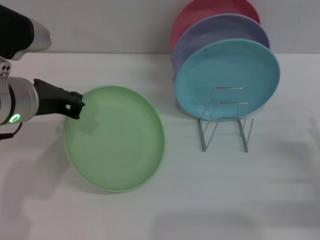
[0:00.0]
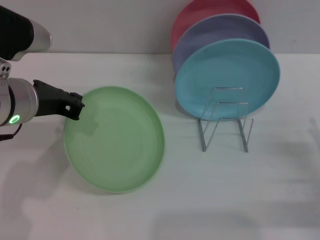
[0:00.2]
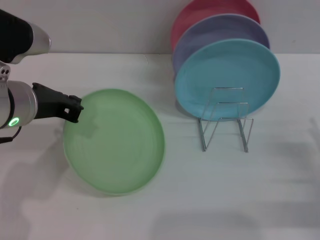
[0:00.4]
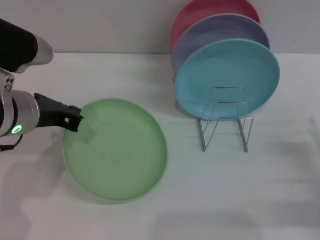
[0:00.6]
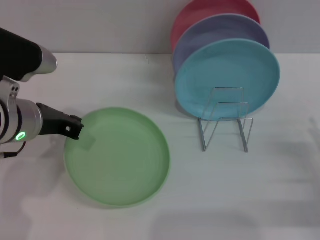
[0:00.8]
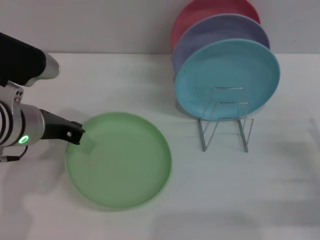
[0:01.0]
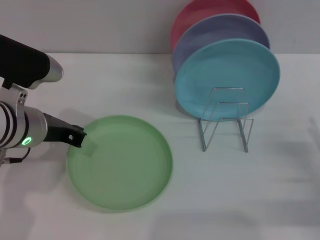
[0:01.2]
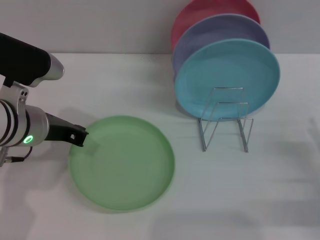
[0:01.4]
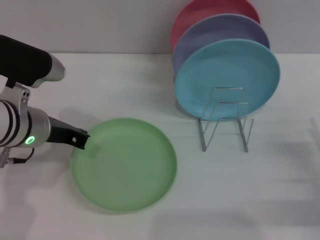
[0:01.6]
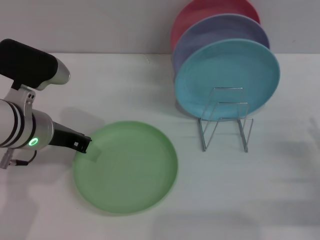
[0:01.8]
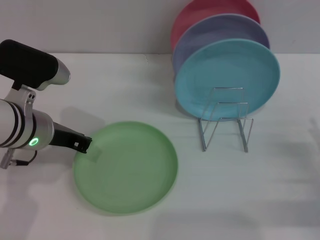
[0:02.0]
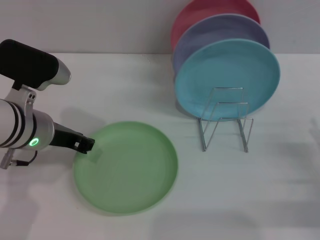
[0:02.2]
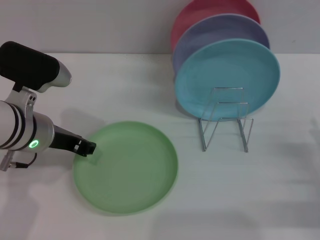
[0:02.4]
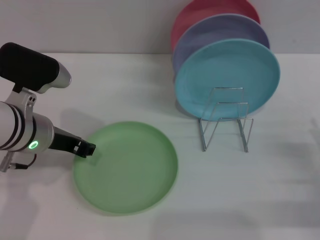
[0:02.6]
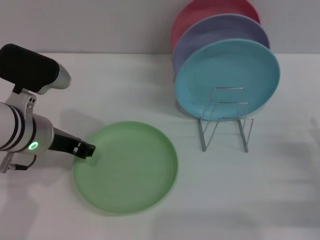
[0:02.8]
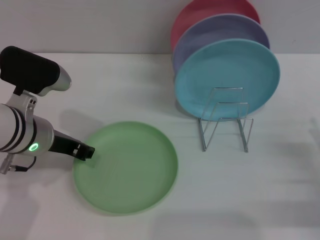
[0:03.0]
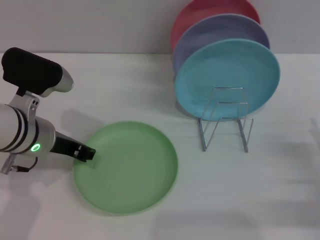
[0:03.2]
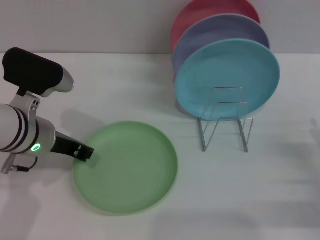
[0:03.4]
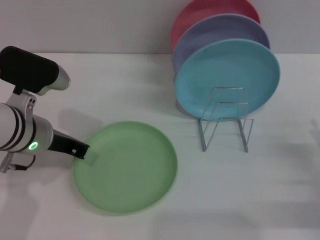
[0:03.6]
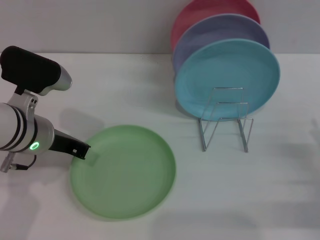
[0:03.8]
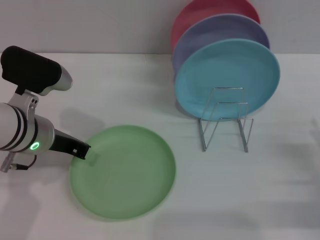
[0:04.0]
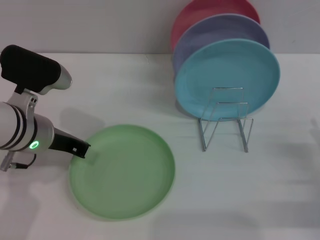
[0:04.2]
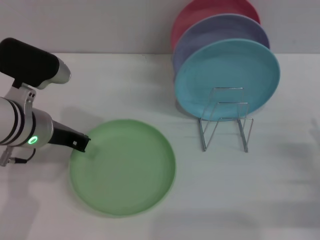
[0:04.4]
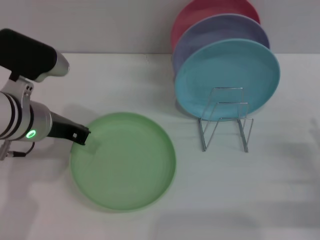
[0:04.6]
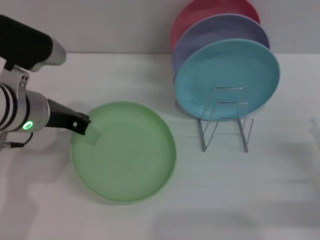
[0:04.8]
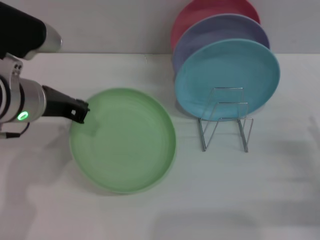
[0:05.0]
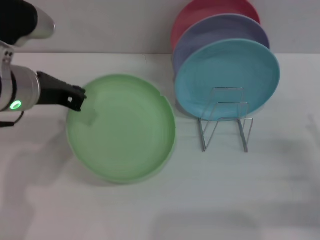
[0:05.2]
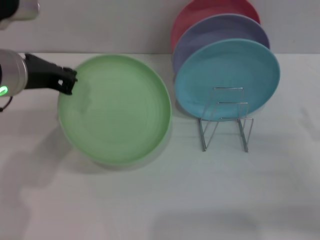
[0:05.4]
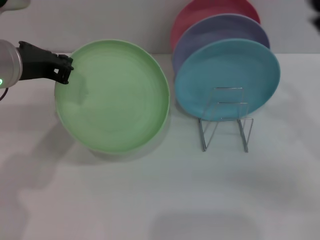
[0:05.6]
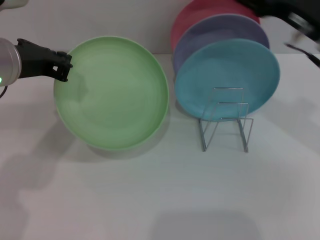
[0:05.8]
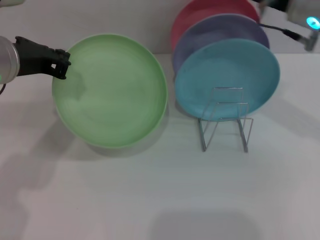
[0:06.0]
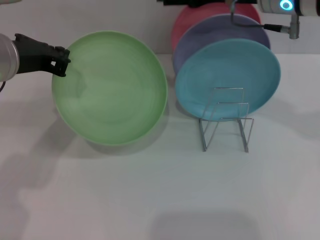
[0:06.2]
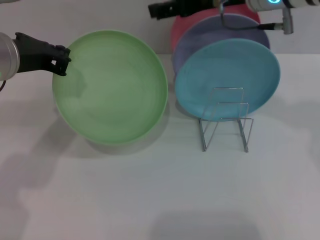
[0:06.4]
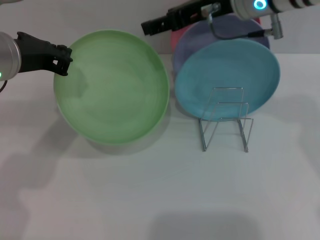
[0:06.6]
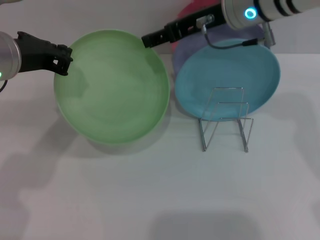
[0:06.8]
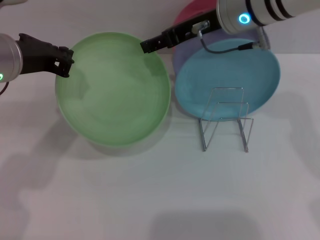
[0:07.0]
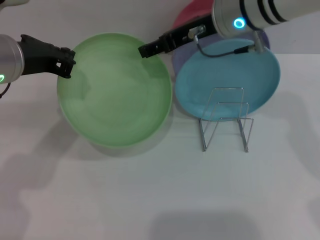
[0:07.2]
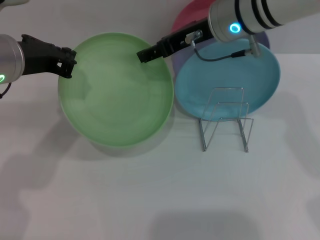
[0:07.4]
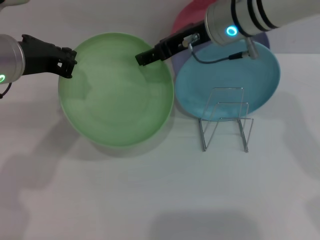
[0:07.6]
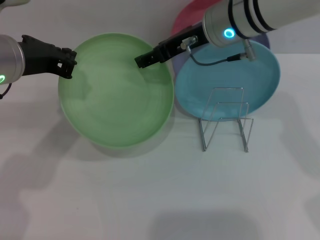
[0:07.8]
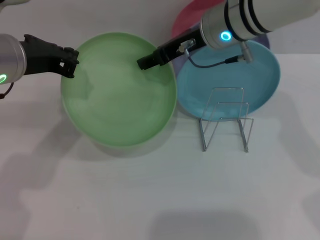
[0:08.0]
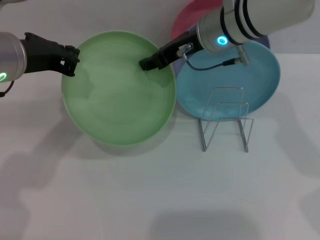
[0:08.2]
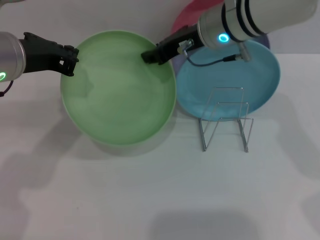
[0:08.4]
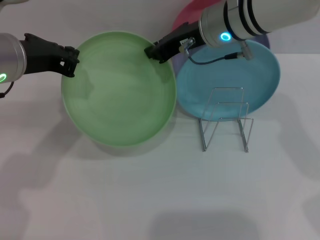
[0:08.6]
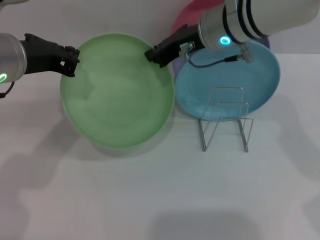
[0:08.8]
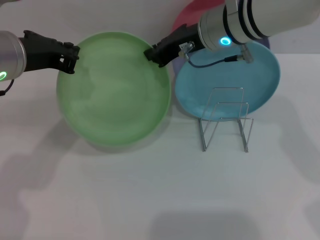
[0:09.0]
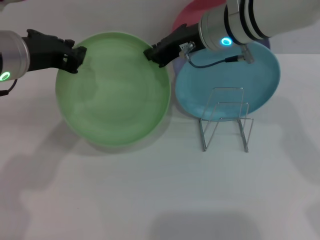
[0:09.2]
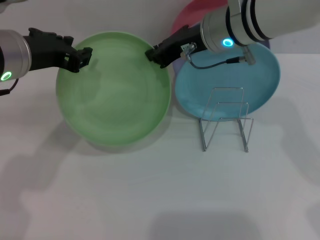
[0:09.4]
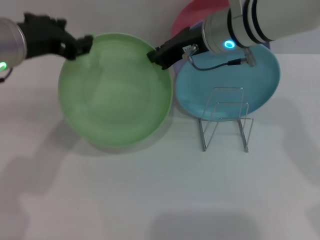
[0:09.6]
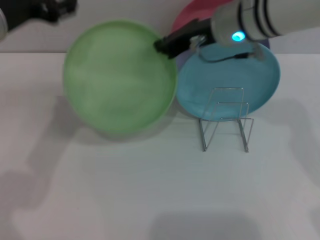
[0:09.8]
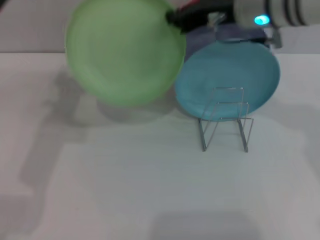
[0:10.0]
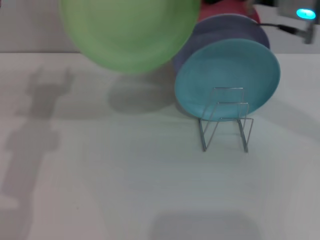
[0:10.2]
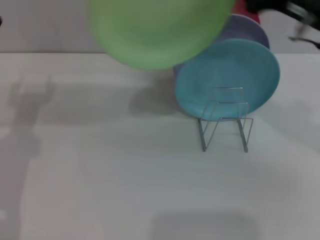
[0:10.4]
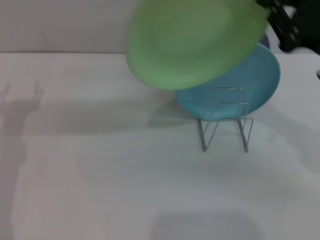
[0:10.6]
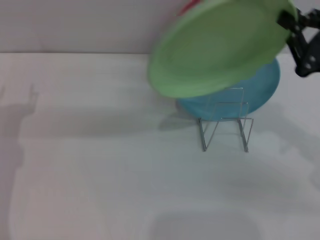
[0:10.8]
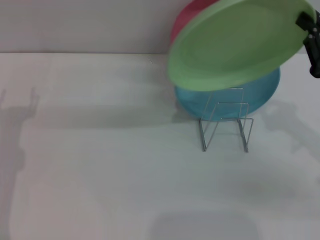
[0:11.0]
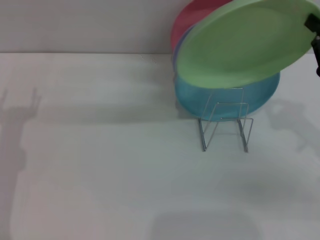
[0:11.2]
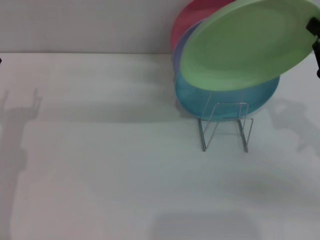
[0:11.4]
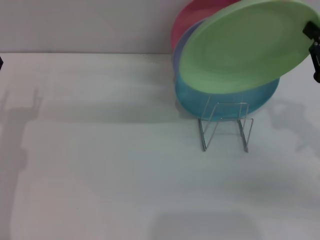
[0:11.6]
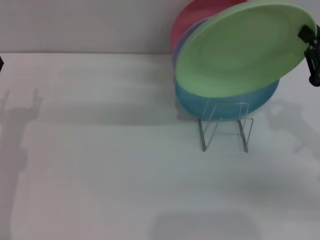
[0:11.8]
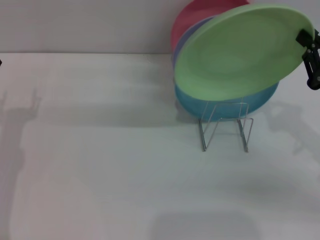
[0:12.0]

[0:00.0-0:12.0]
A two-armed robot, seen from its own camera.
Task of the whole recording: Grip the plate with one hand, pass it to the other, then set it on the shelf.
Step, 0:00.0 to 0:05.2: Pick up the plate with the left gripper.
Step, 0:05.4 to 0:10.6: Pass the plate from the left gripper to the right gripper.
0:00.0 to 0:01.6: The left gripper moves downward, some 5 cm.
0:01.6 to 0:03.0: The left gripper opens.
0:03.0 to 0:04.4: The left gripper closes up.
0:04.4 to 0:06.0: The left gripper travels upward by about 10 cm; the right gripper shifts some 30 cm upward, forward and to the left.
0:06.0 to 0:07.6: The right gripper is displaced to the left by roughly 10 cm.
0:07.6 to 0:09.0: The right gripper closes.
0:09.0 to 0:10.4: The right gripper heads to the right and backward, covering approximately 15 cm, while the left gripper travels downward and to the left by roughly 10 cm, and opens.
0:10.4 to 0:12.0: The left gripper heads downward, covering approximately 5 cm, while the right gripper travels downward, to the right and backward by roughly 15 cm.

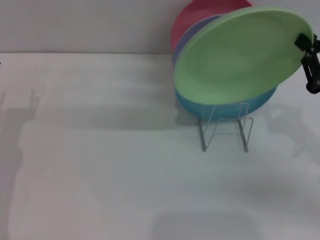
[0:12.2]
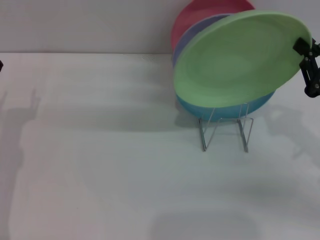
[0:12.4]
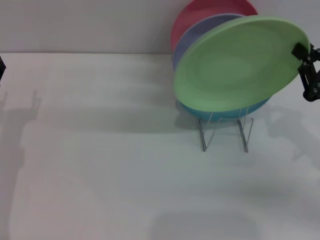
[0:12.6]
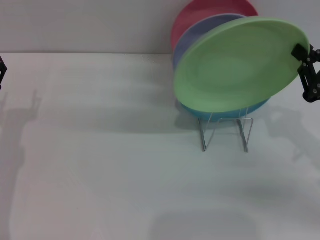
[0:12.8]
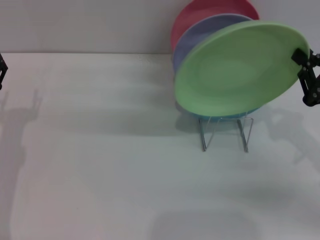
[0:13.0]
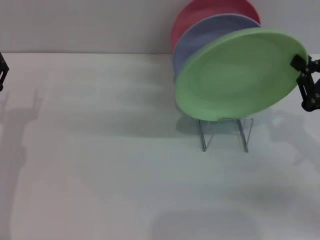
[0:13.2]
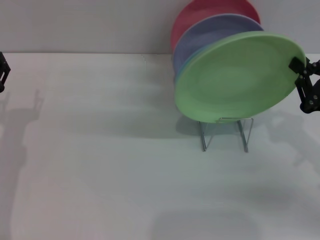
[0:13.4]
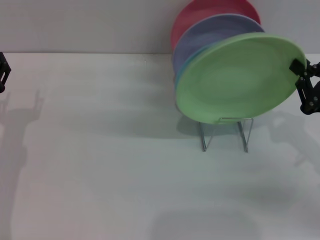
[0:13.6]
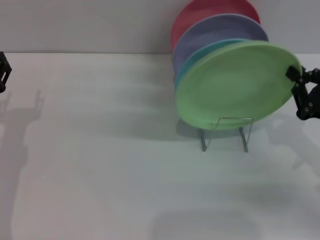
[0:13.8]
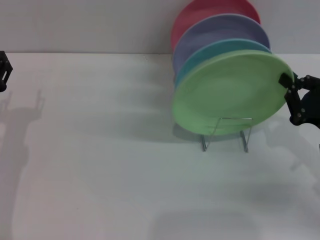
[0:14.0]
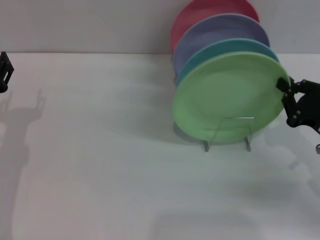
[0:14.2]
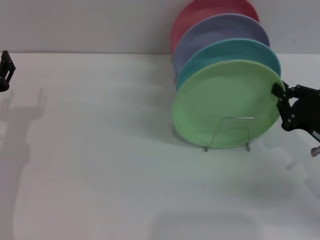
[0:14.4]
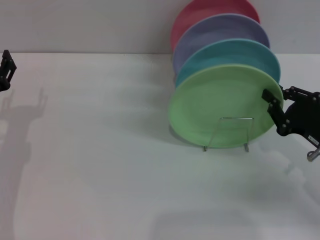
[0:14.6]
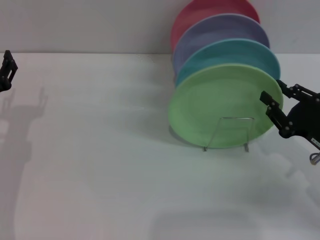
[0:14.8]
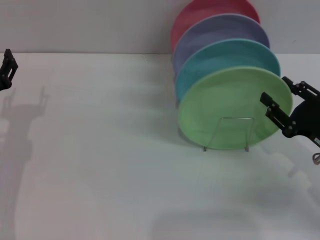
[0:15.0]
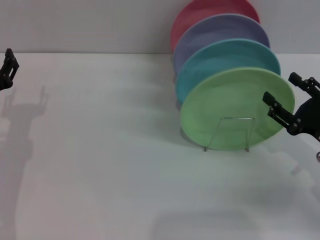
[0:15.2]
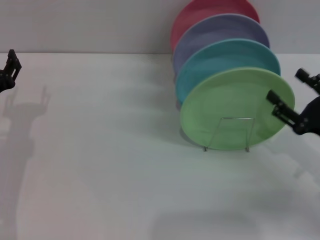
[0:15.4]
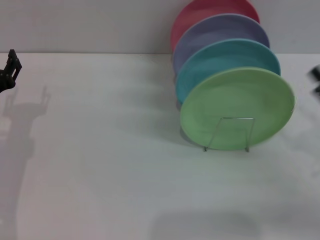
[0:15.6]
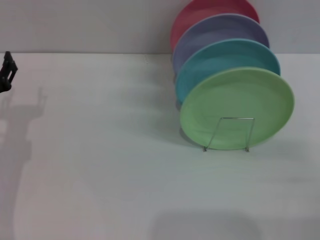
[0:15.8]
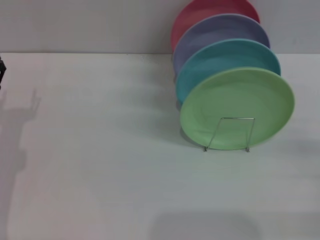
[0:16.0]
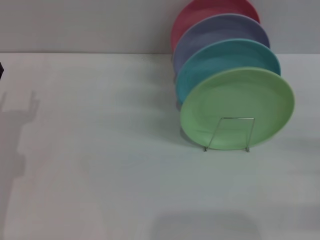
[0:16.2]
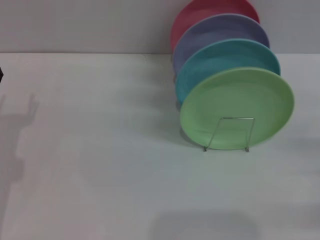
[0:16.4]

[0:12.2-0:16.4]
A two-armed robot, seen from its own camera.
Task of the whole recording: Grip the plate with one hand, pass it to the other, then set it on the shelf.
Step, 0:12.2 to 0:15.2: Place the plate on the shelf with the right gripper.
0:12.2 to 0:13.6: There are only small adjustments of the grippers.
0:13.6 to 0:15.0: The right gripper opens.
0:15.0 to 0:16.4: The right gripper goes some 10 cm to the right, and opens.
